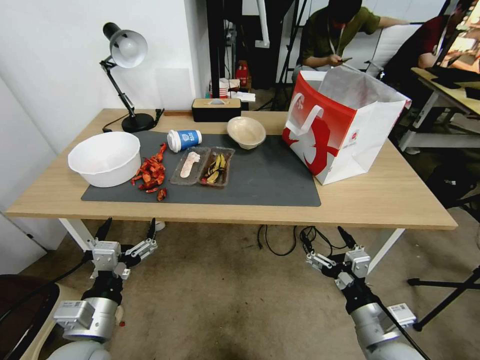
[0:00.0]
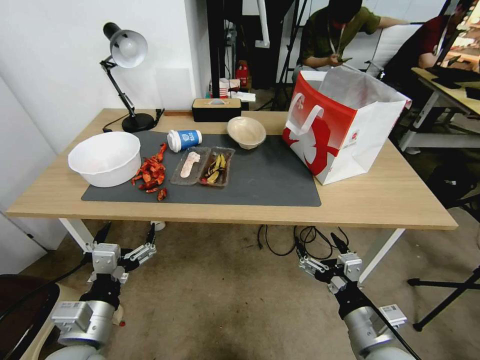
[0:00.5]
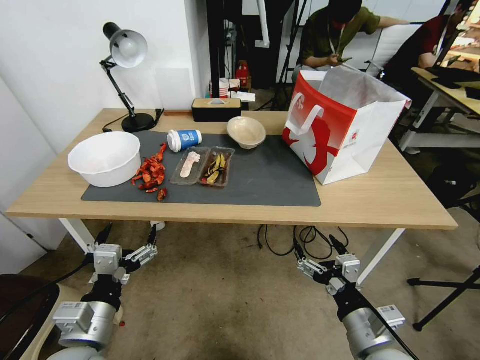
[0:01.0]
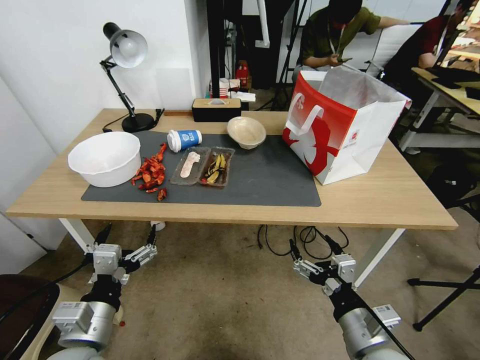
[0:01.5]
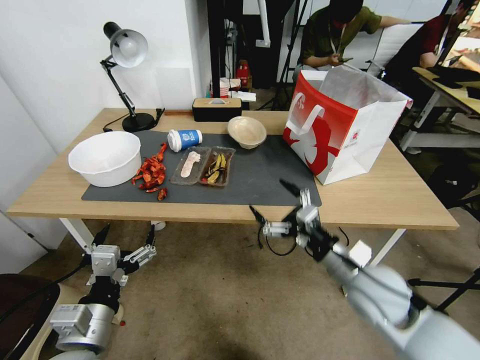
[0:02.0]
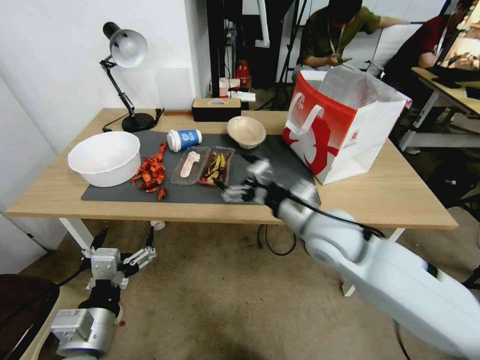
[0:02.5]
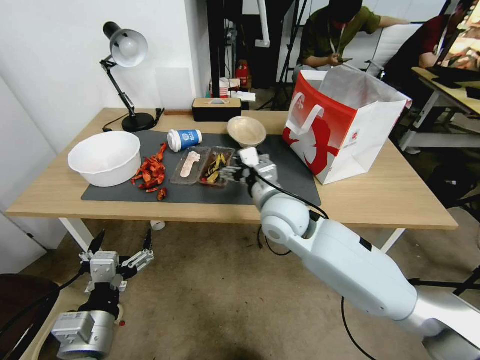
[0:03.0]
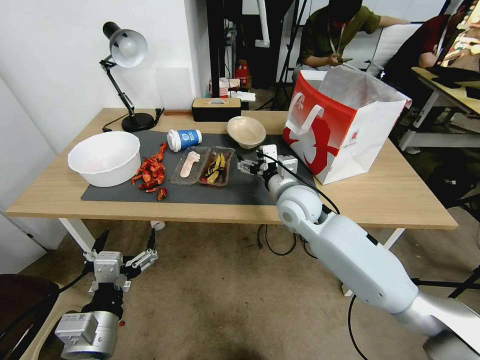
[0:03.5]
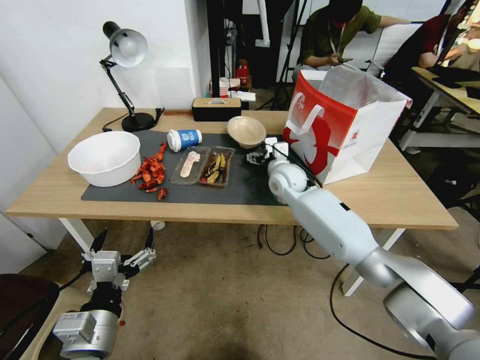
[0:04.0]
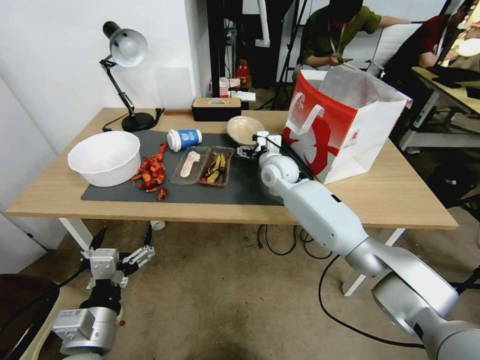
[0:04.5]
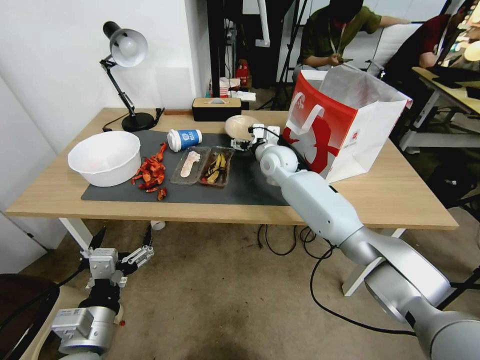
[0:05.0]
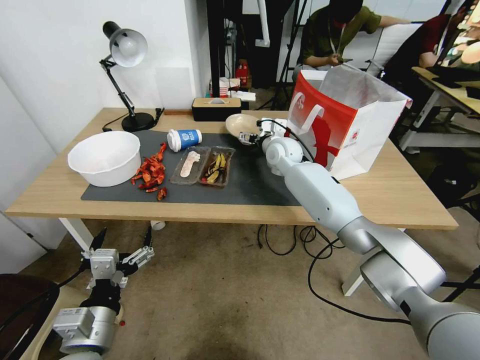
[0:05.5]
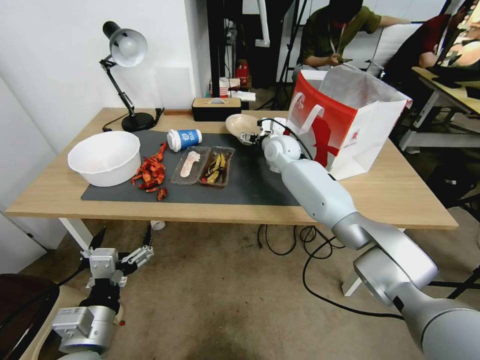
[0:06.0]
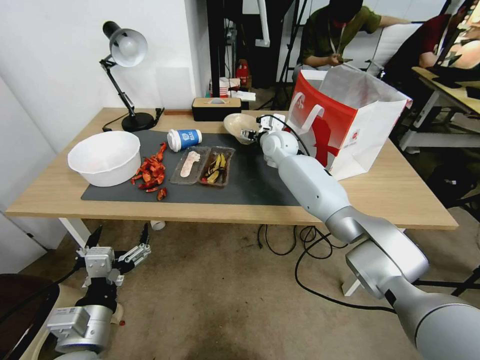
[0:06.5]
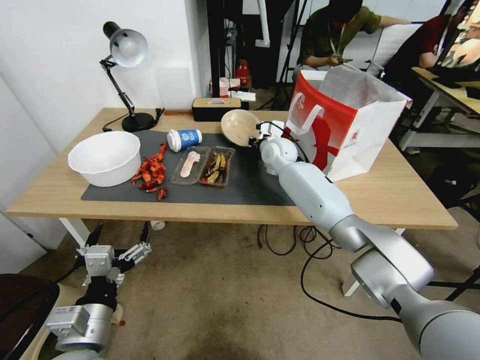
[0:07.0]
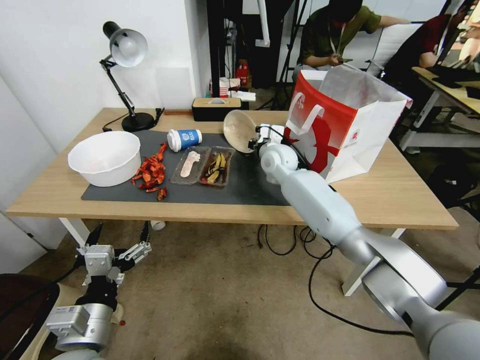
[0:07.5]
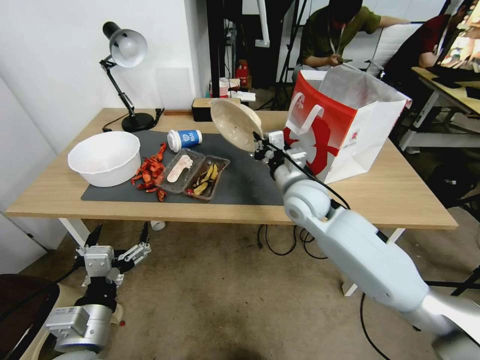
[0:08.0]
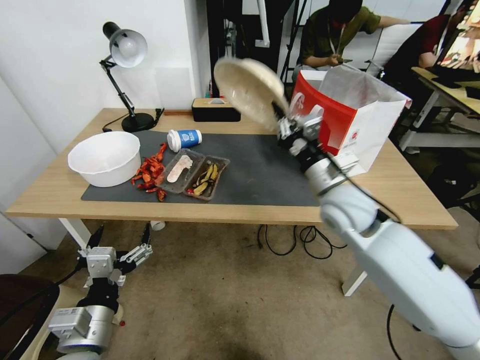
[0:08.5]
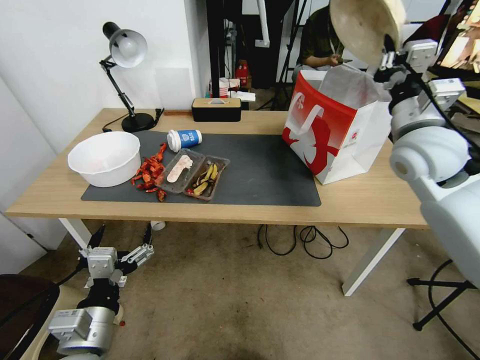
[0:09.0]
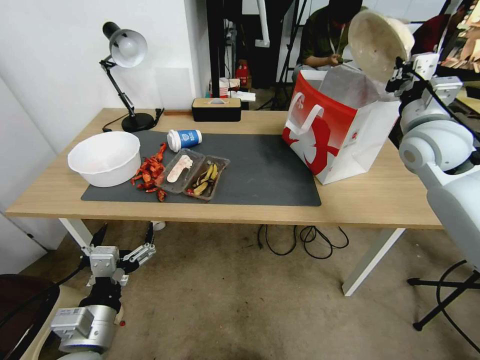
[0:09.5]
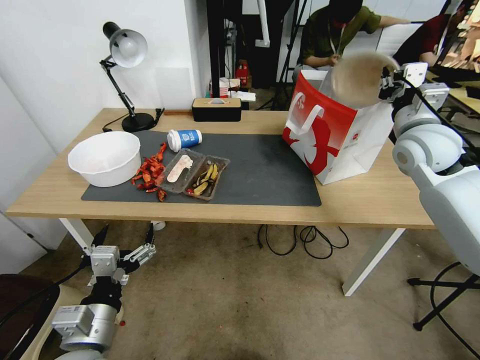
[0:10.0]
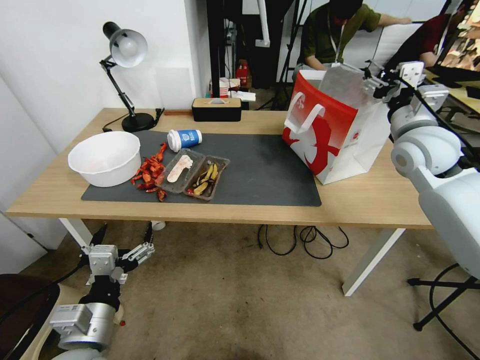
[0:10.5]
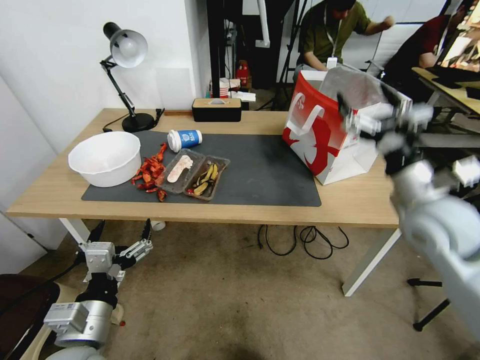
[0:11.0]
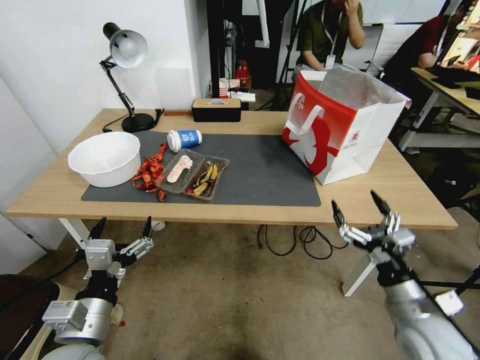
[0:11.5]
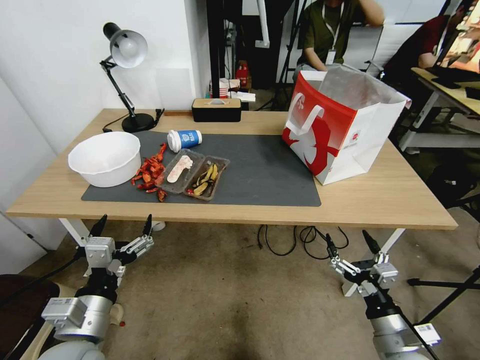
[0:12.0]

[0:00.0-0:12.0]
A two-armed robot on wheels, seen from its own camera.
0:00.0 to 0:02.0: The right gripper is displaced forward by approximately 10 cm.
0:02.0 to 0:04.0: The right gripper heads forward and to the left, covering about 30 cm.
0:04.0 to 0:06.0: The right gripper shifts roughly 10 cm forward.
0:06.0 to 0:08.0: The right gripper is displaced backward by some 20 cm, and closes.
0:08.0 to 0:10.0: The right gripper heads to the right and upward, covering about 25 cm.
0:10.0 to 0:12.0: The right gripper heads backward and downward, covering about 40 cm, and opens.

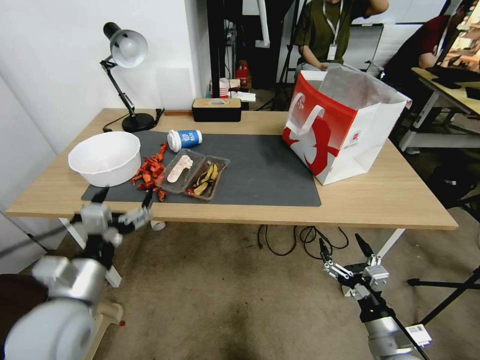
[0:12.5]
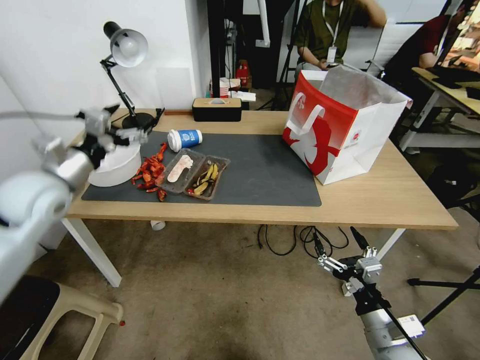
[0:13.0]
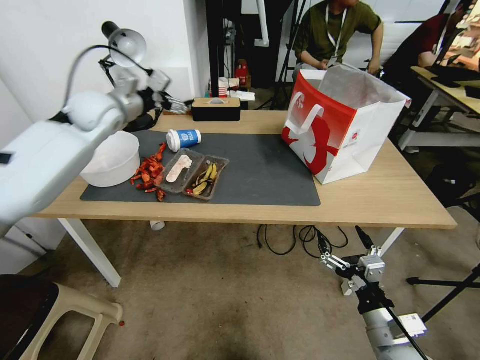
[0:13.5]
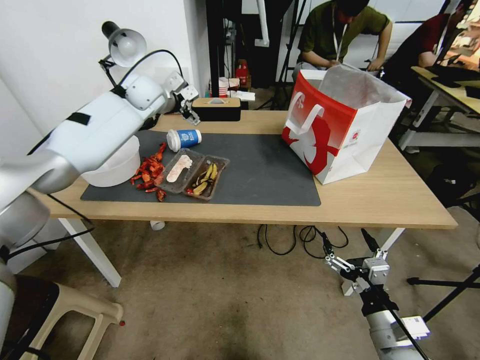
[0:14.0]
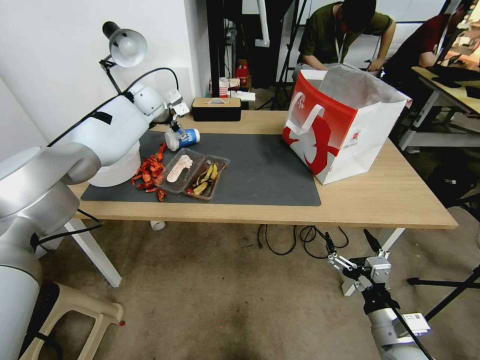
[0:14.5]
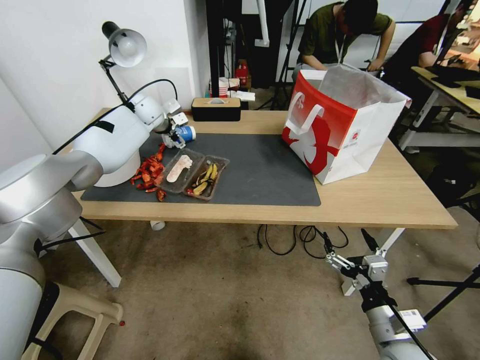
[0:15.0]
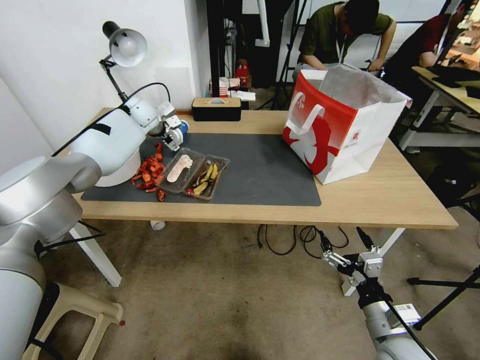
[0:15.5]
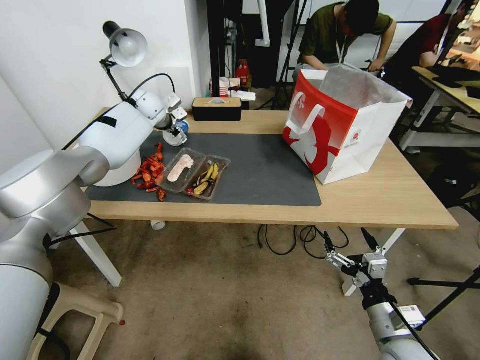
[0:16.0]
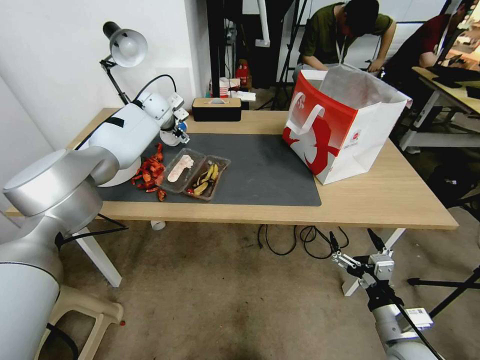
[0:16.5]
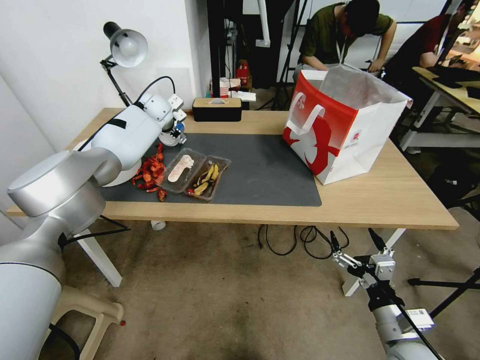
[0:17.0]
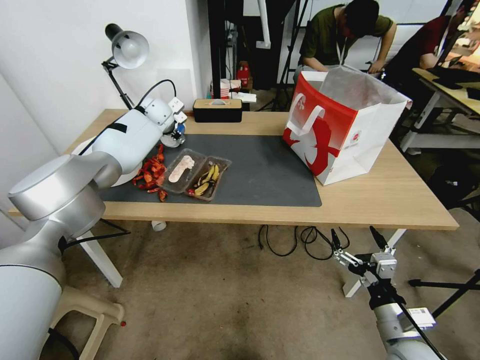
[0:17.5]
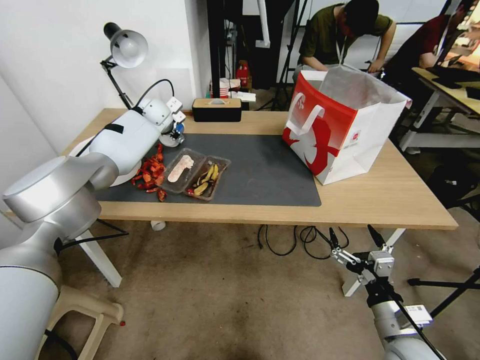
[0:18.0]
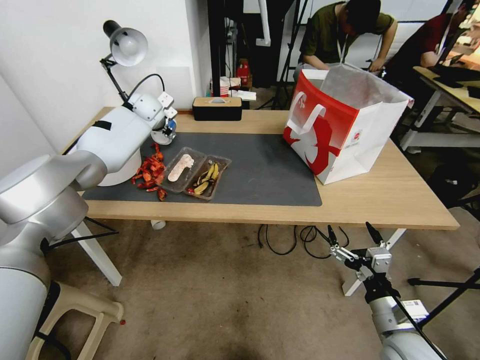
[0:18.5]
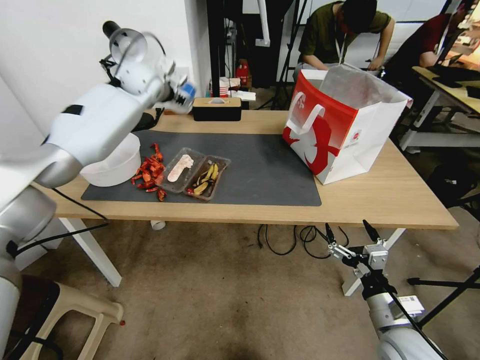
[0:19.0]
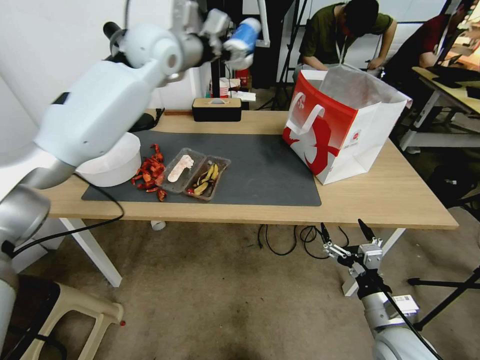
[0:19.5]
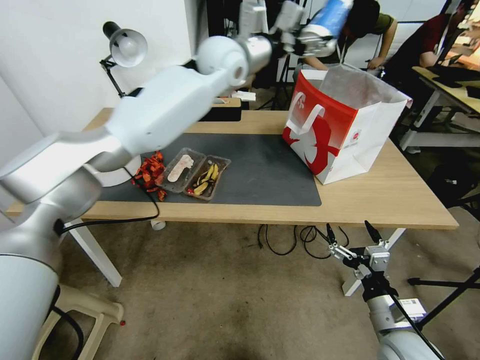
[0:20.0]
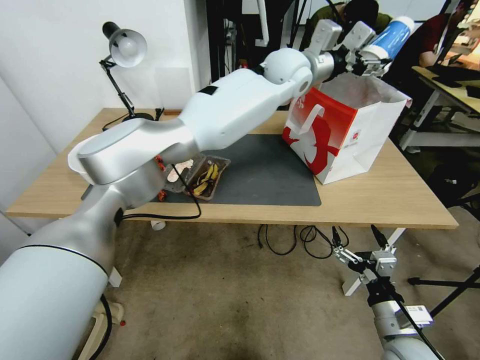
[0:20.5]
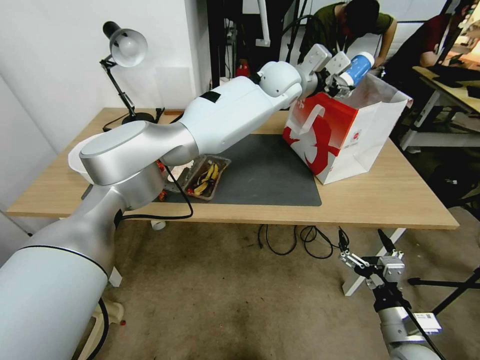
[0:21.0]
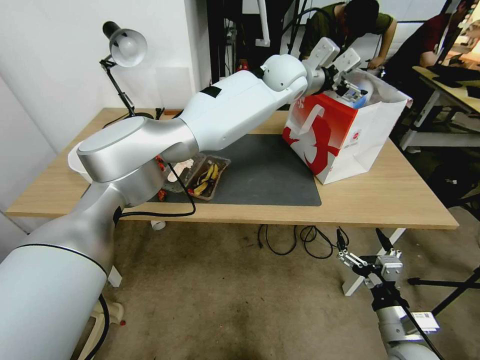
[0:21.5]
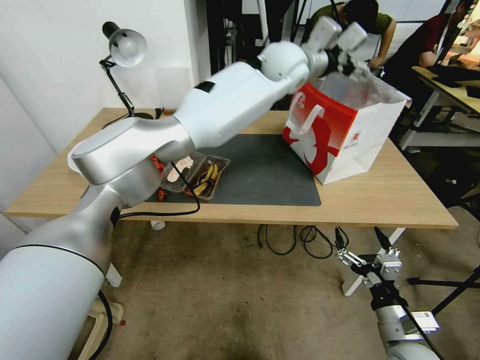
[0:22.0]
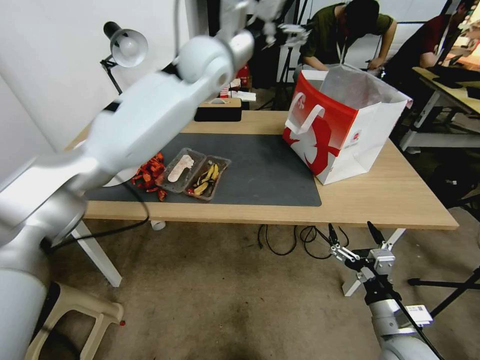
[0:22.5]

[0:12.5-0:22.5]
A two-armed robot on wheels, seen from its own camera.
0:12.5 to 0:14.5: The left gripper moves forward, approximately 50 cm.
0:14.5 to 0:16.5: The grippers move only a little.
0:16.5 to 0:18.5: The left gripper closes its fingers.
0:18.5 to 0:20.5: The left gripper goes roughly 40 cm to the right and upward.
0:20.5 to 0:22.5: The left gripper is displaced to the left by some 15 cm, and opens.

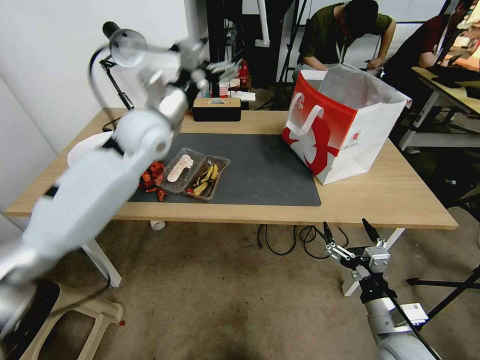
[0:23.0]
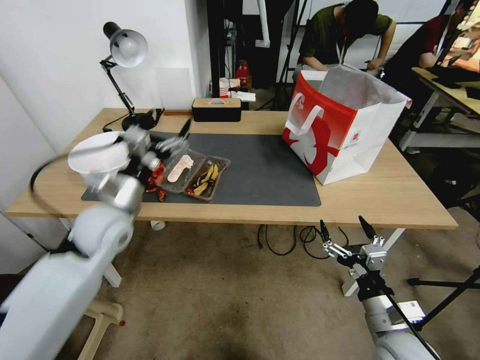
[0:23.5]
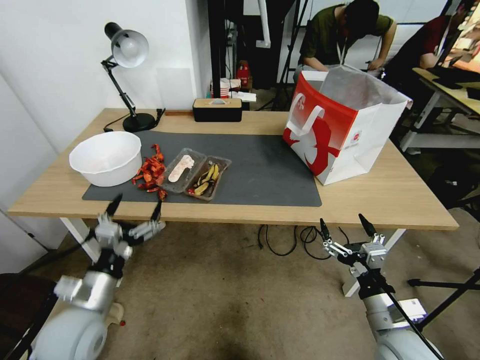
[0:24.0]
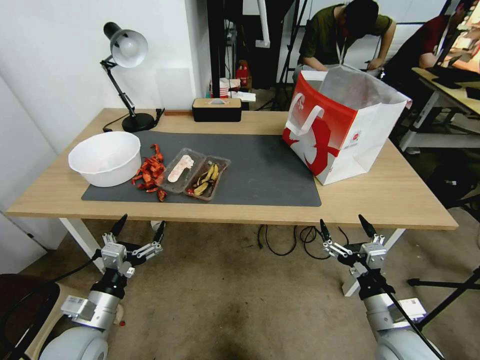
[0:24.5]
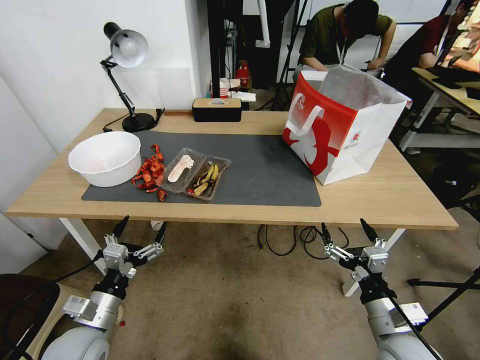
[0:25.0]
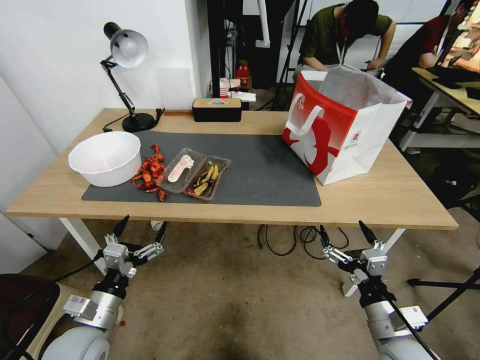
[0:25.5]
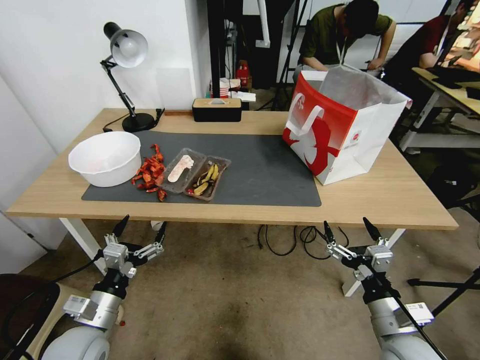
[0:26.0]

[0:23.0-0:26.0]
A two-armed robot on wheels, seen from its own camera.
0:23.0 to 0:24.5: The left gripper heads backward and downward, covering some 40 cm.
0:24.5 to 0:26.0: The grippers make only small movements.

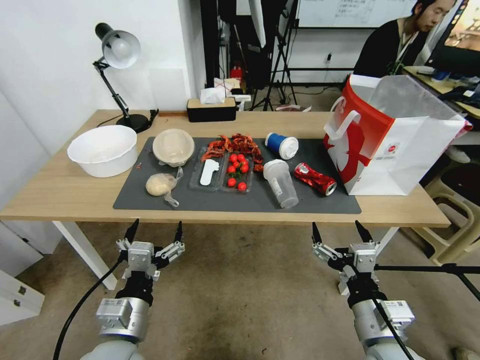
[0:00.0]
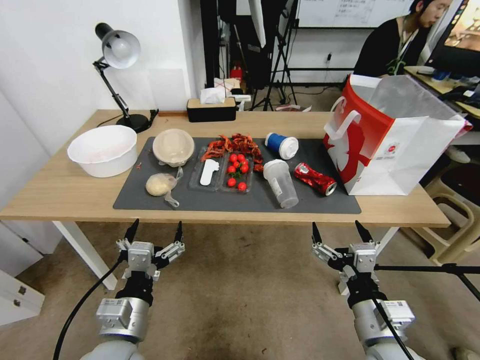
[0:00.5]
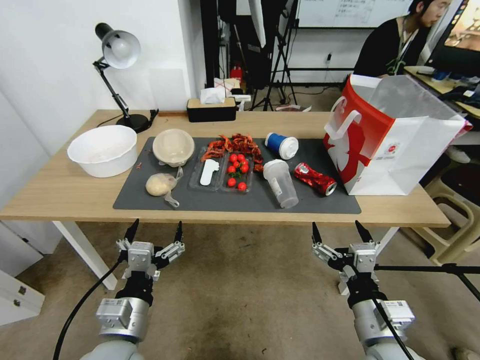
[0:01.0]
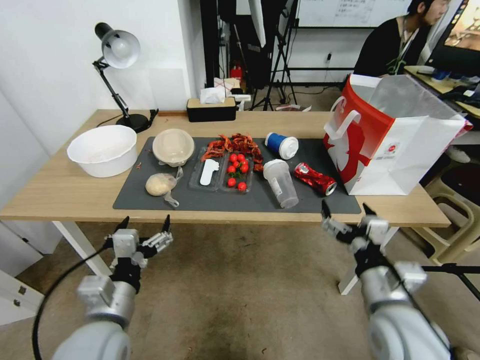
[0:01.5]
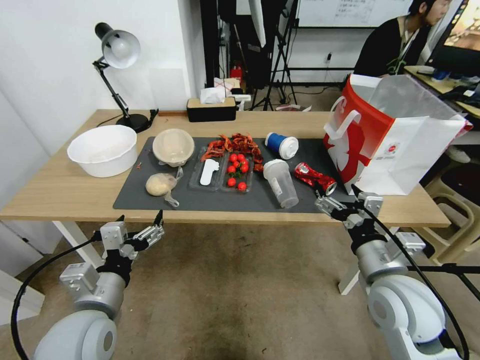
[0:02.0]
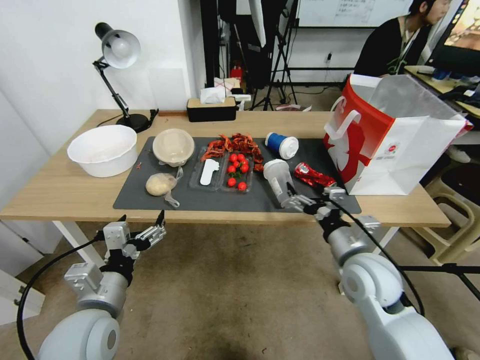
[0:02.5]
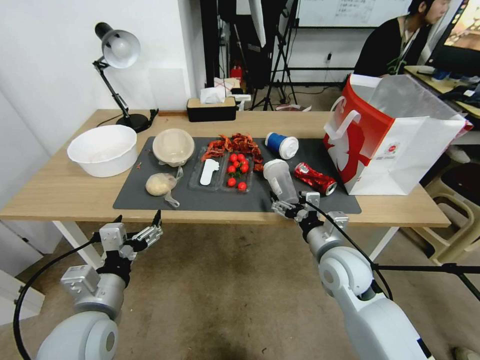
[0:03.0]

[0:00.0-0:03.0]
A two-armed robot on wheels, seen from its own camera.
0:01.5 to 0:03.0: The right gripper goes about 10 cm forward.
